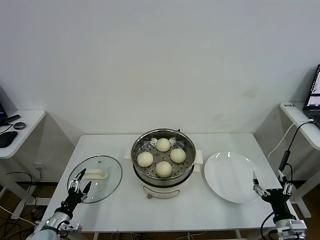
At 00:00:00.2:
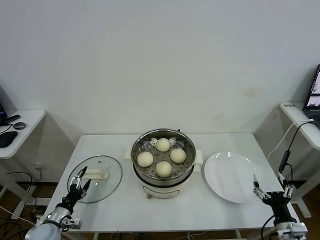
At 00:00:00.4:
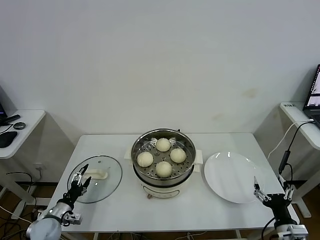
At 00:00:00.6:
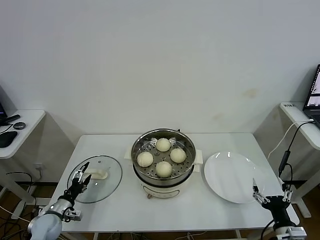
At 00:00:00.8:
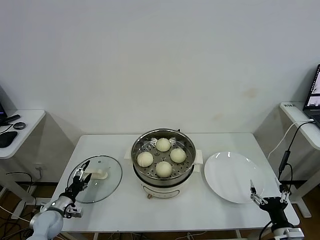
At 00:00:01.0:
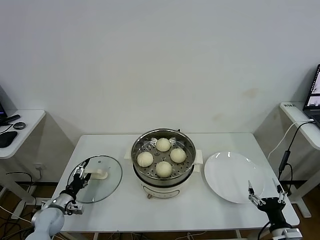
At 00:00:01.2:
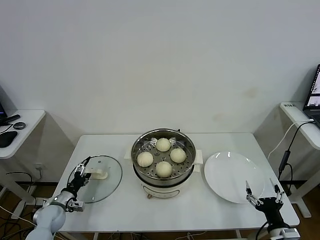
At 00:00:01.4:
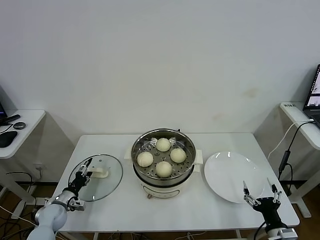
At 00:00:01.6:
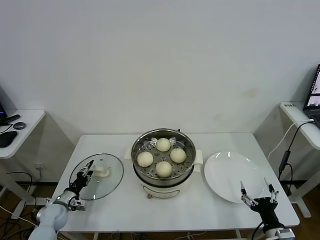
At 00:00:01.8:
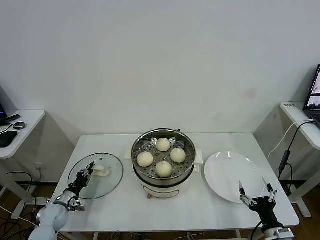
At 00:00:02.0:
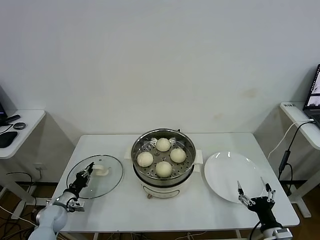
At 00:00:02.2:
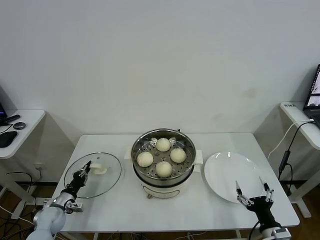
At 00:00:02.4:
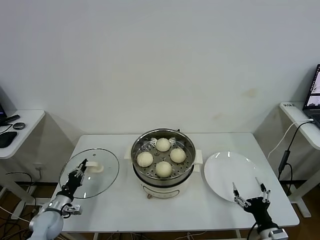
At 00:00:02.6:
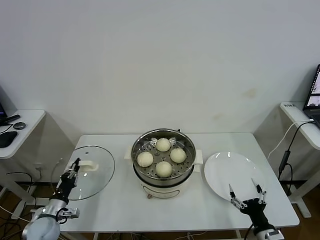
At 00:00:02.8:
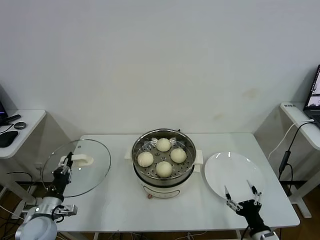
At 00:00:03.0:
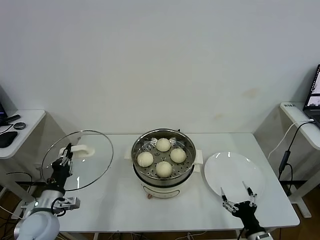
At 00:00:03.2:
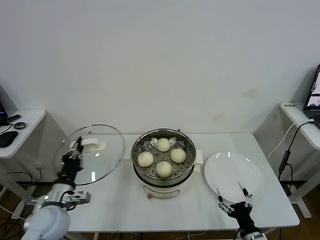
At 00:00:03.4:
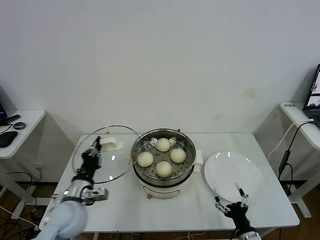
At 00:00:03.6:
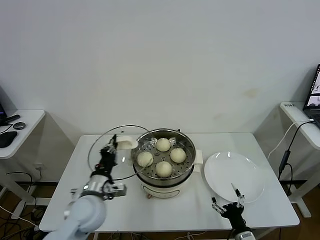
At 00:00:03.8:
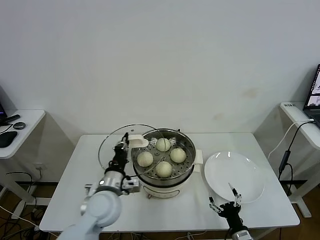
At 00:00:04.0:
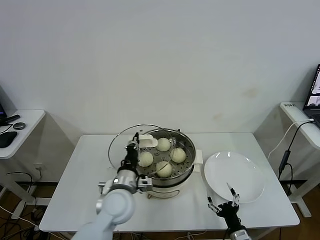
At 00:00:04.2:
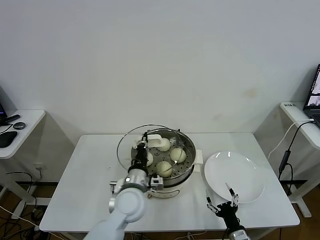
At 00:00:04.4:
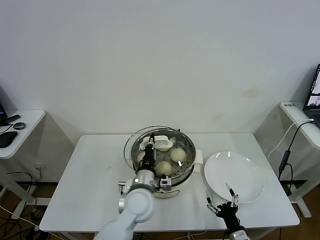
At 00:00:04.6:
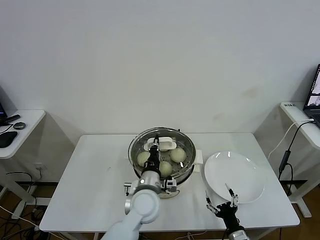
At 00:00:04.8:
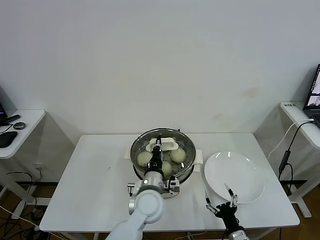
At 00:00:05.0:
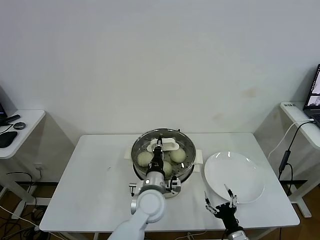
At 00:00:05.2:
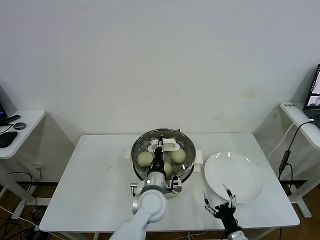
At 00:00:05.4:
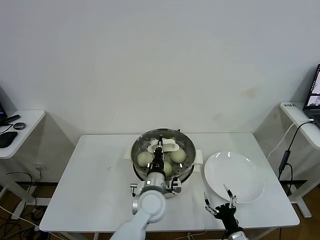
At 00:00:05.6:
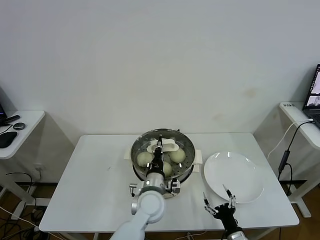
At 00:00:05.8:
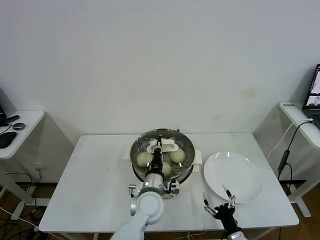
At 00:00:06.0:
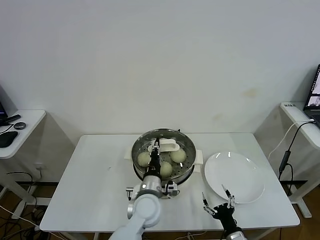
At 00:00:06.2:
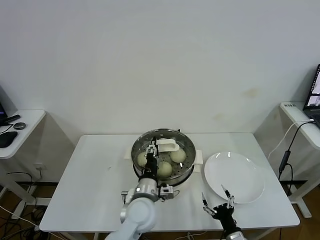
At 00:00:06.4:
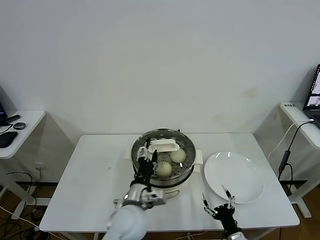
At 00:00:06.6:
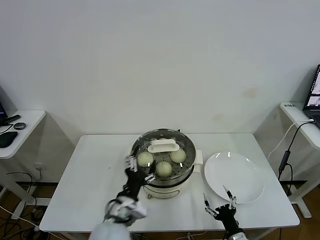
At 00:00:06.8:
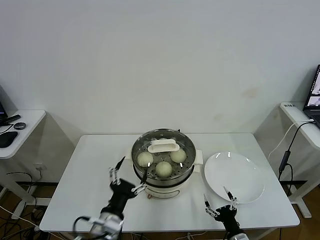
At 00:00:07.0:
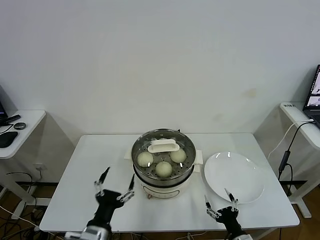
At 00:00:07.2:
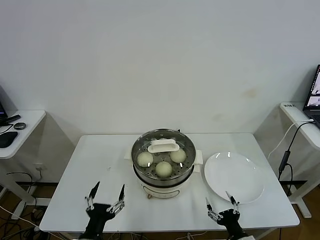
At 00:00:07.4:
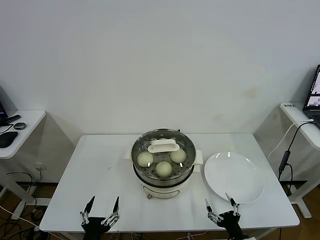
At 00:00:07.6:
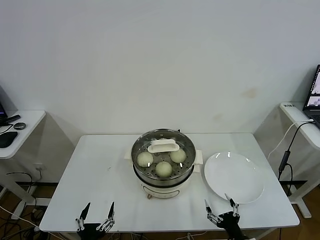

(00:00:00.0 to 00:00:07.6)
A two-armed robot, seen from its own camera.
Task of the whole recording: take steamed baozi put them in steamer.
Step, 00:00:00.0 - 00:00:02.0: Grasp the pot lid with left gripper.
Step, 00:00:02.2 - 00:00:06.2: Place the pot lid on the steamer with left gripper.
00:00:00.0 - 00:00:01.6: The left gripper shifts about 10 cm forward, and closes its fingers.
00:00:01.6 - 00:00:03.0: The left gripper shifts roughly 20 cm upward, backward and to the right, and closes up.
00:00:03.0 - 00:00:04.6: The left gripper is displaced to the right by about 30 cm, while the right gripper ends up some 5 cm from where it was.
00:00:04.6 - 00:00:06.0: The grippers make only small movements.
00:00:06.0 - 00:00:07.6: The left gripper goes about 30 cm backward and to the left, and opens up.
